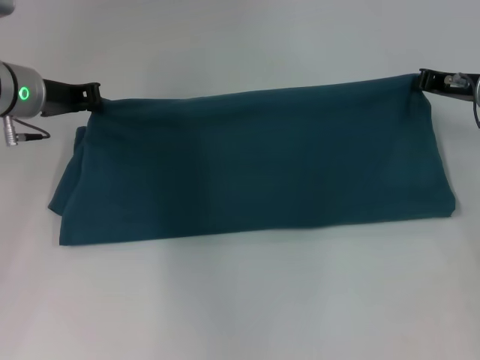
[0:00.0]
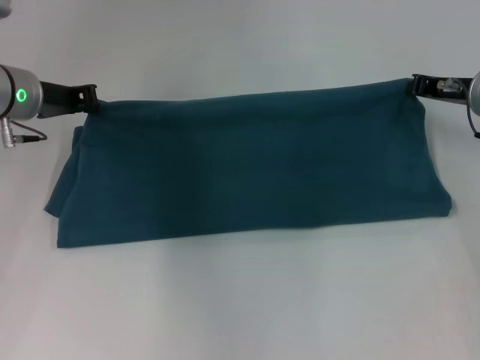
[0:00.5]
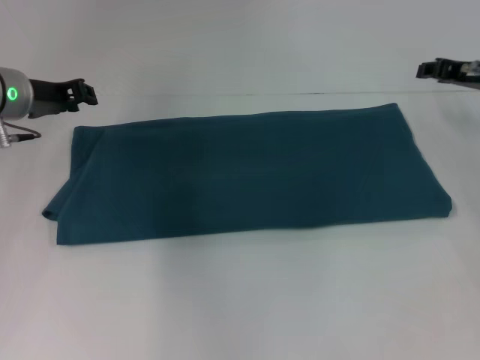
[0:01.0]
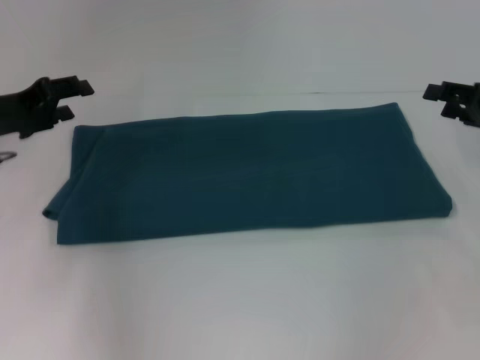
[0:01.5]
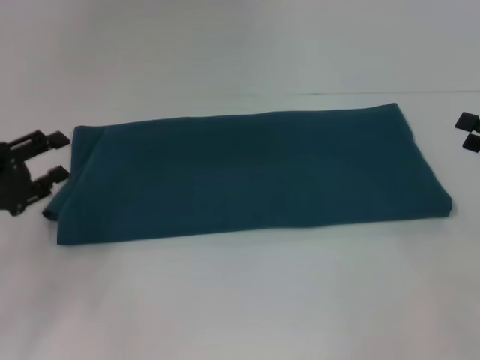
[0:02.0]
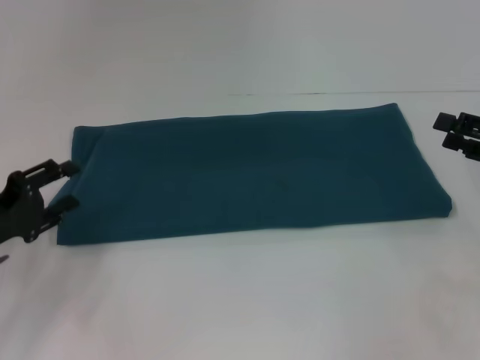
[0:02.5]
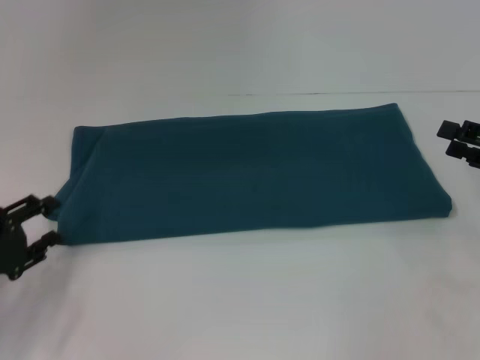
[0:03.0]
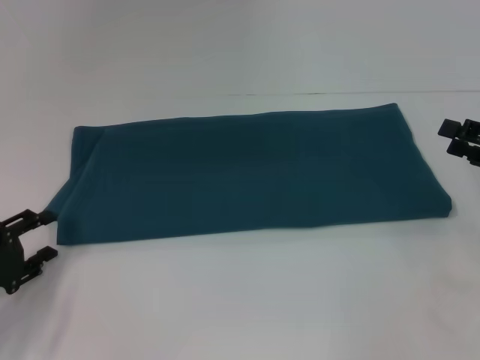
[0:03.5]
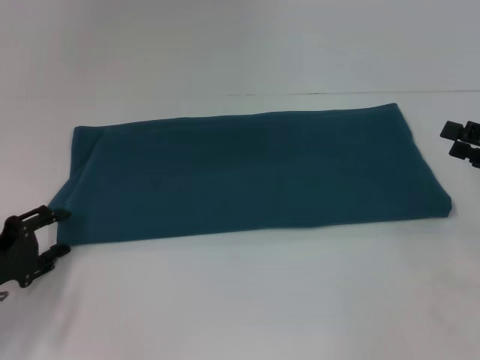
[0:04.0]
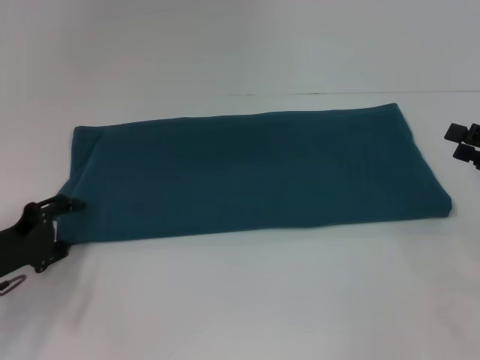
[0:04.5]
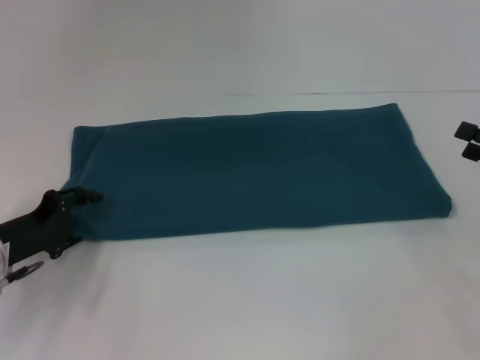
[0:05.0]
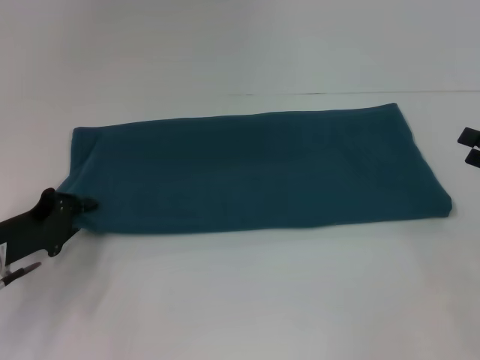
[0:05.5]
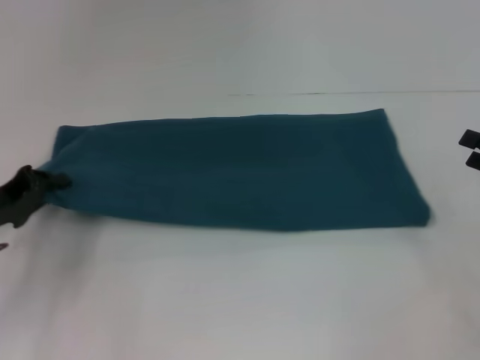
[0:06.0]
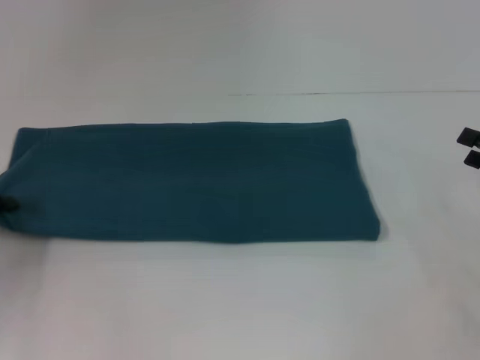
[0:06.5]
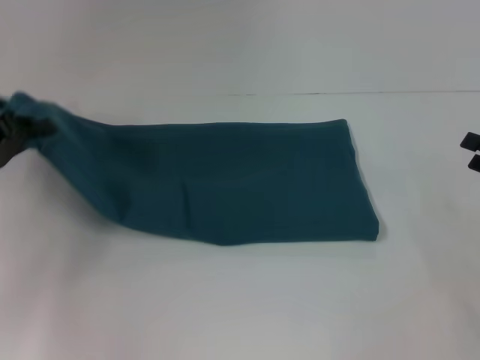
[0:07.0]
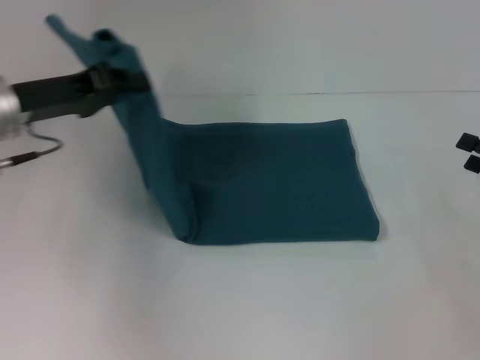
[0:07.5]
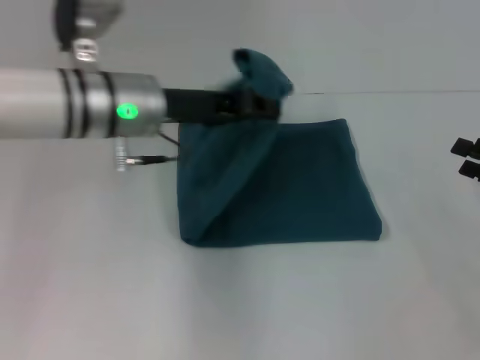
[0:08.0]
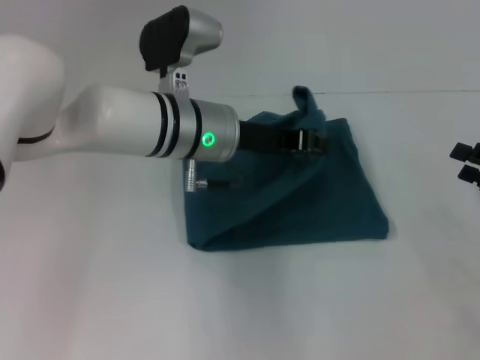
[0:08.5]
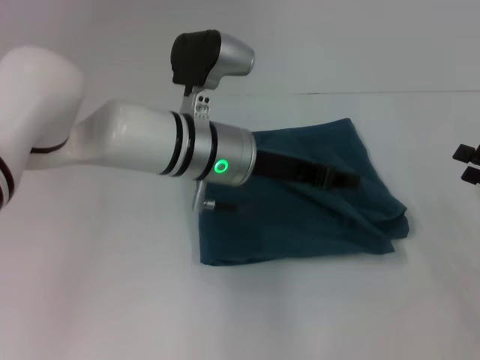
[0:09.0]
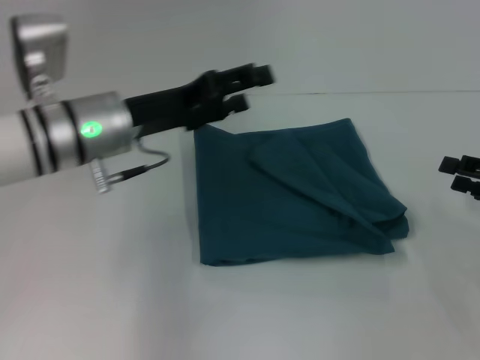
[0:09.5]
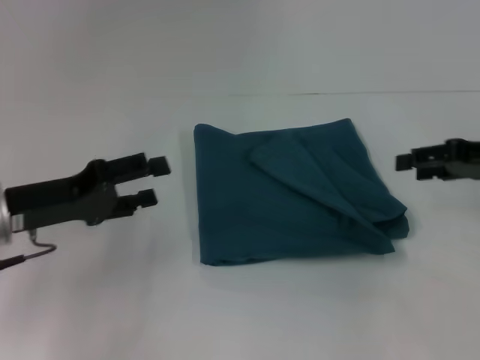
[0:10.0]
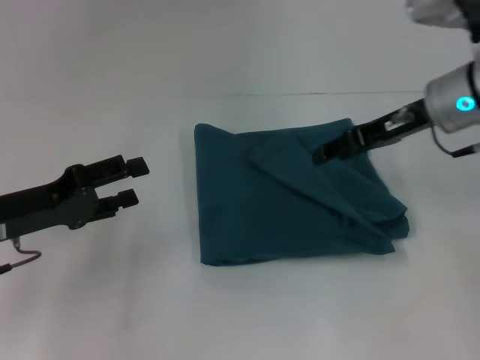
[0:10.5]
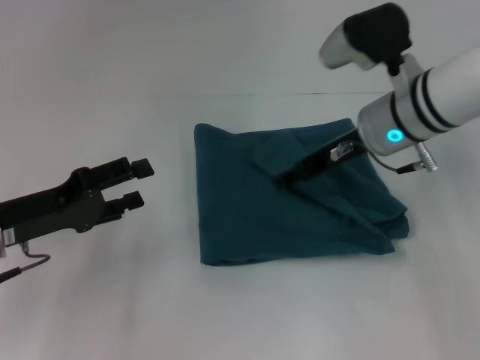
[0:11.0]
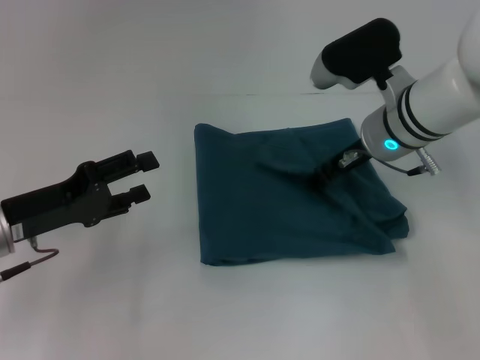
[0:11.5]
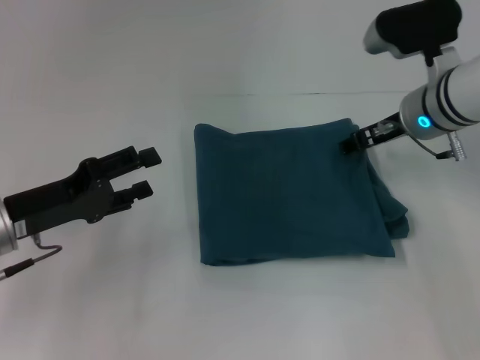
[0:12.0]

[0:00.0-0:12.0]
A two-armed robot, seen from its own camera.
Step, 0:00.0 to 0:09.0: Fold the clothes to the left.
0:00.0 to 0:02.0: The right gripper travels backward and to the right by some 15 cm, and opens, while the left gripper moves backward and to the left, about 20 cm, and opens up.
0:02.0 to 0:04.0: The left gripper heads downward, covering approximately 5 cm.
0:04.0 to 0:06.0: The left gripper changes place by approximately 5 cm, and closes up.
0:06.0 to 0:08.0: The left gripper heads to the right, upward and forward, covering about 25 cm.
0:08.0 to 0:10.0: The left gripper heads to the left, backward and downward, covering roughly 15 cm, and opens up. The right gripper heads forward and upward, covering some 10 cm.
0:10.0 to 0:12.0: The right gripper goes some 15 cm to the left and forward.

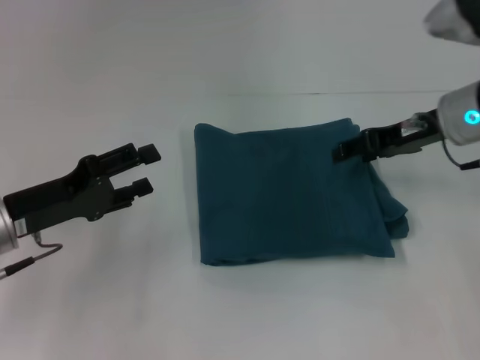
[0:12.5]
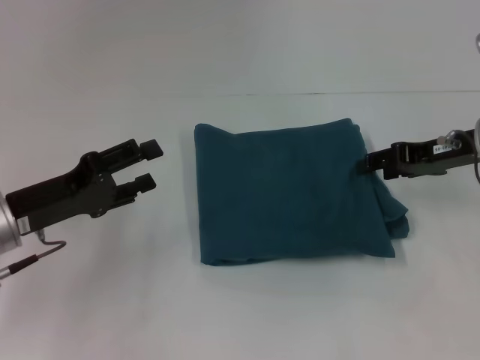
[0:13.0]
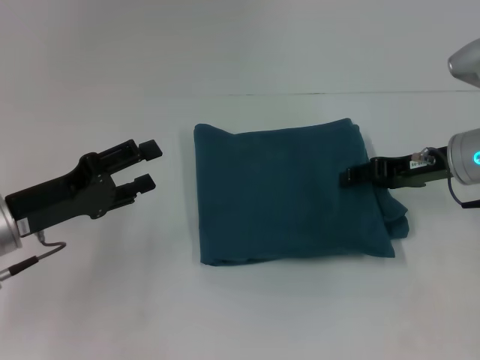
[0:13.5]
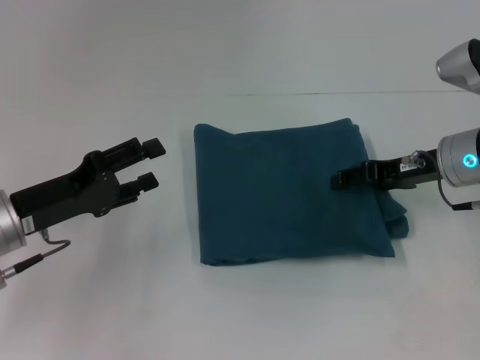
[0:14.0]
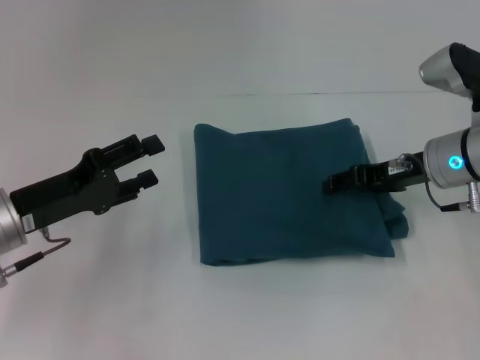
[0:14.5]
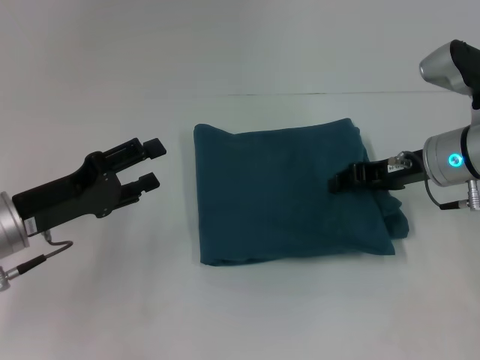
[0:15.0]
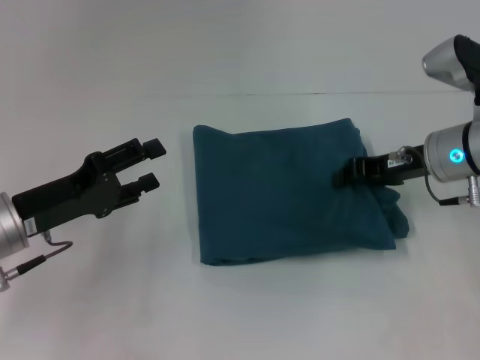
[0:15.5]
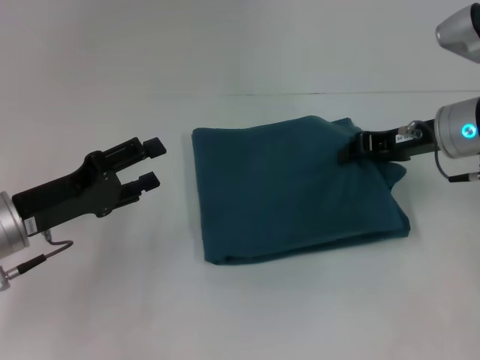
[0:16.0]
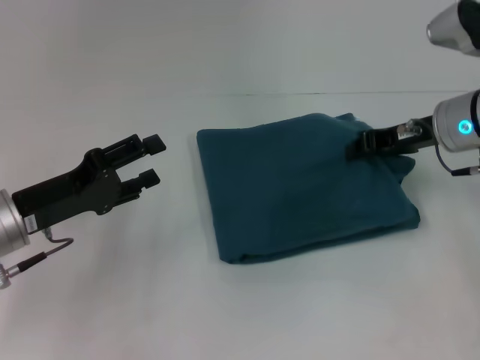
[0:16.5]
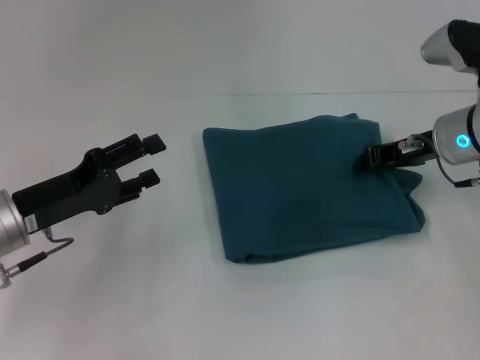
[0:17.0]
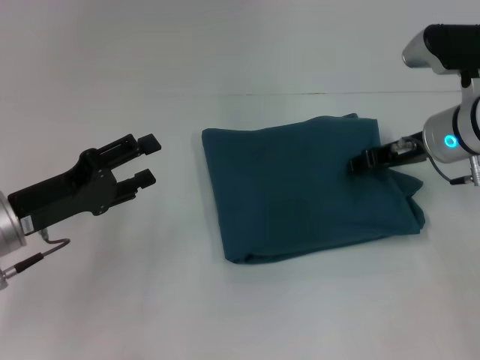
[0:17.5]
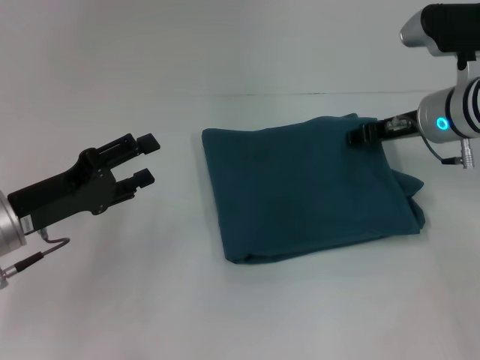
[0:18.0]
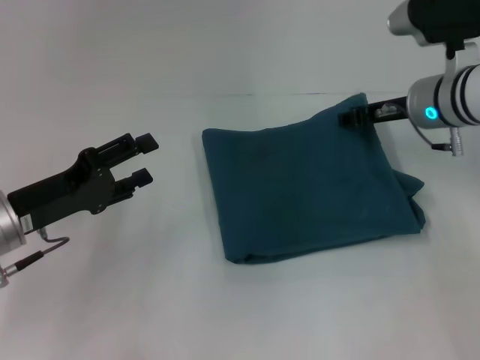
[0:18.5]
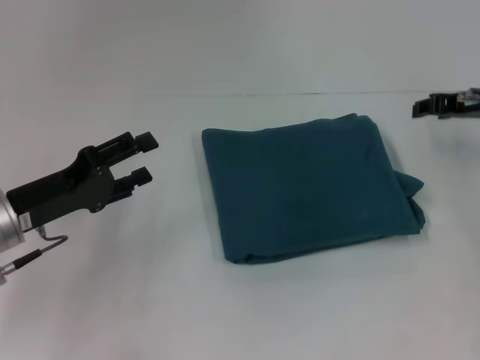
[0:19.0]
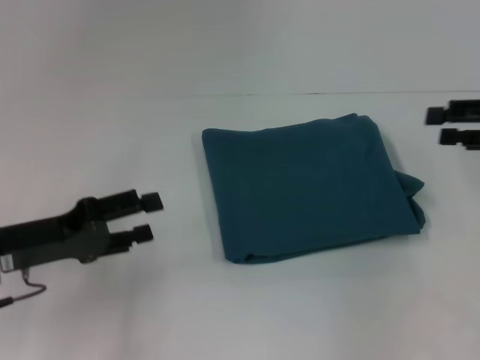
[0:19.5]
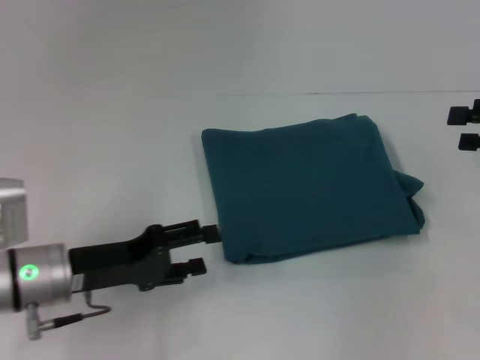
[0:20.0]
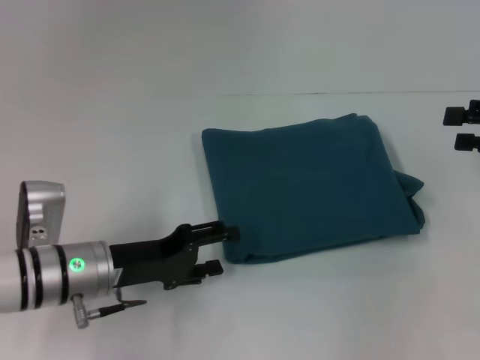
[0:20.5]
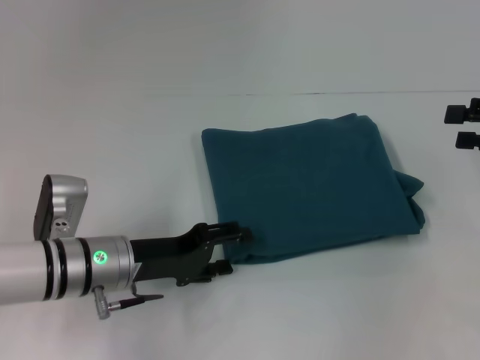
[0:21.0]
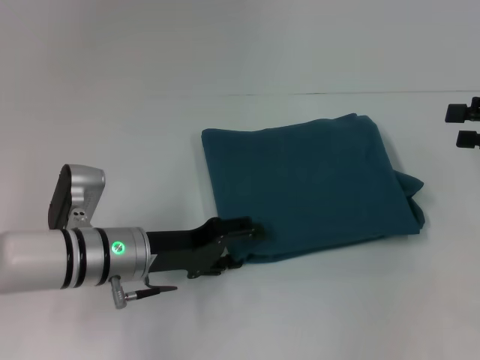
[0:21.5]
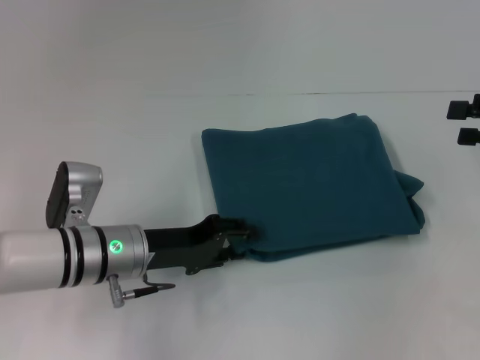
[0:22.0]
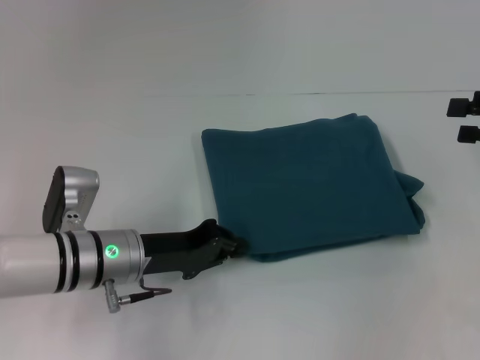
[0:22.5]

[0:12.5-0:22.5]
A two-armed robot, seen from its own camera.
0:12.5 to 0:14.5: The right gripper travels downward by about 5 cm.
0:14.5 to 0:16.5: The right gripper closes.
0:16.5 to 0:18.5: The right gripper opens its fingers.
0:18.5 to 0:20.5: The left gripper goes some 5 cm to the right, while the right gripper shifts about 20 cm to the right and backward.
0:20.5 to 0:22.5: The left gripper closes.

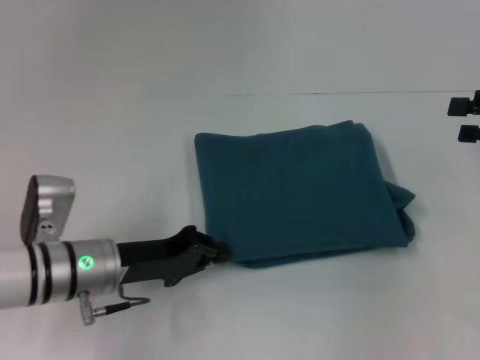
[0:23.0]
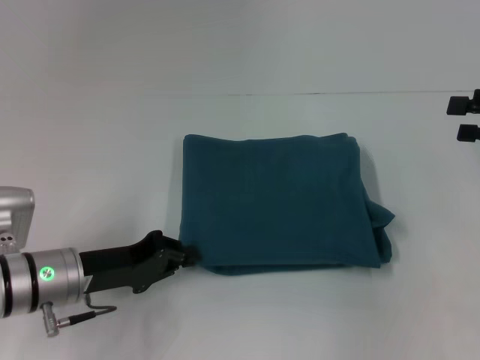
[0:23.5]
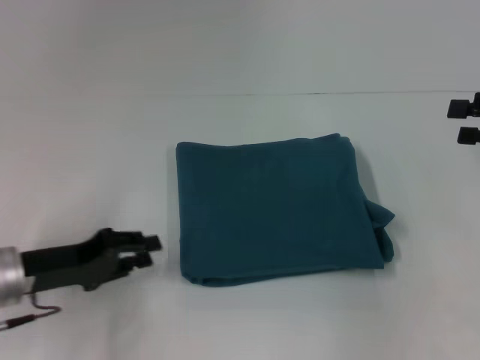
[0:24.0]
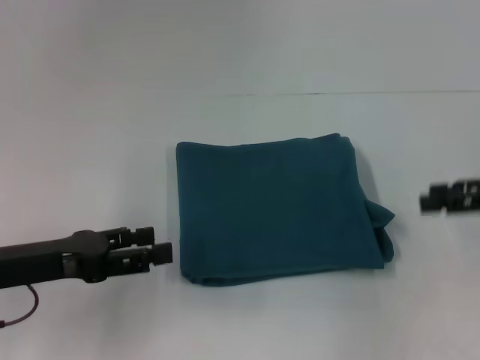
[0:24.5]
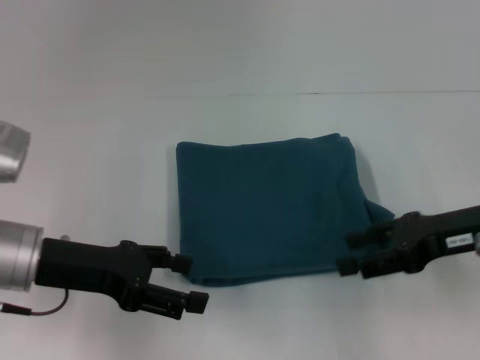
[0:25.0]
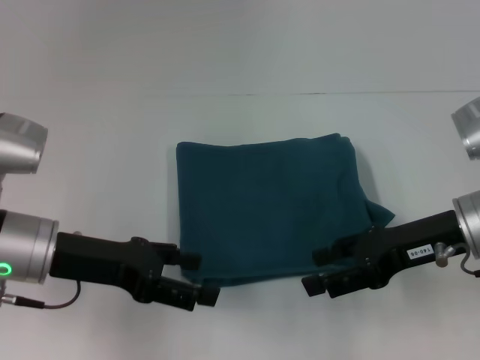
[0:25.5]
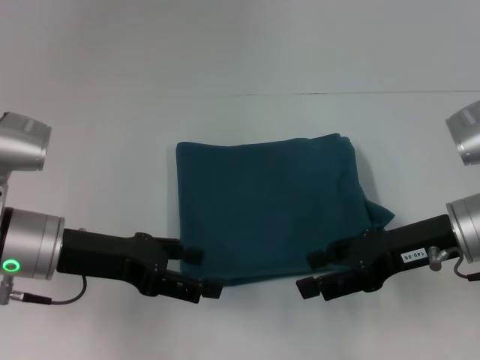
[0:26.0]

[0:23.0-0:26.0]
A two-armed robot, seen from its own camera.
0:23.0 to 0:24.5: The left gripper moves to the left and upward, approximately 10 cm, and opens its fingers.
0:24.5 to 0:26.0: The left gripper shifts approximately 5 cm to the right, and opens up, while the right gripper goes about 10 cm to the left.
